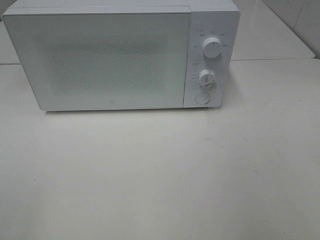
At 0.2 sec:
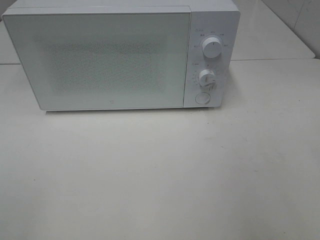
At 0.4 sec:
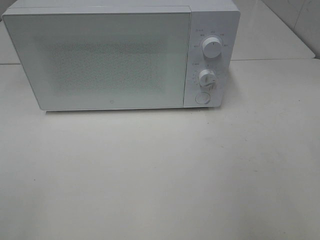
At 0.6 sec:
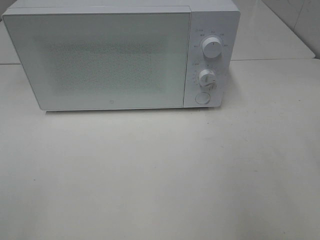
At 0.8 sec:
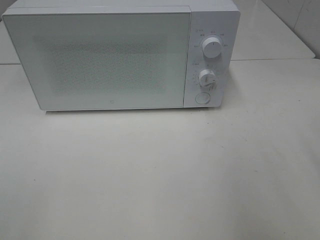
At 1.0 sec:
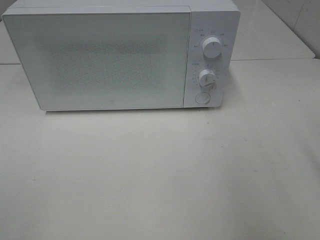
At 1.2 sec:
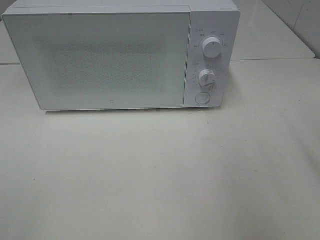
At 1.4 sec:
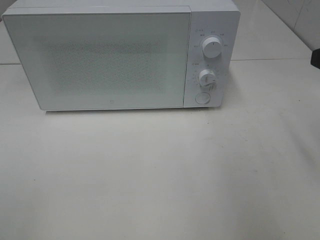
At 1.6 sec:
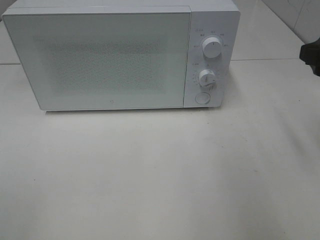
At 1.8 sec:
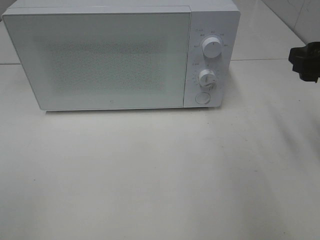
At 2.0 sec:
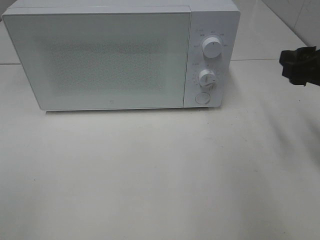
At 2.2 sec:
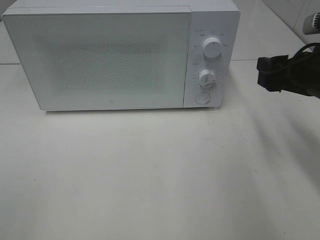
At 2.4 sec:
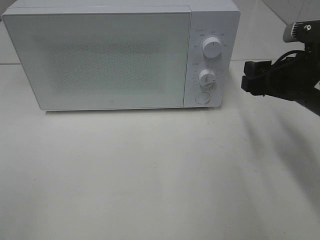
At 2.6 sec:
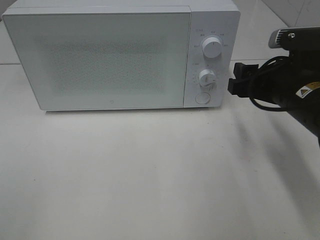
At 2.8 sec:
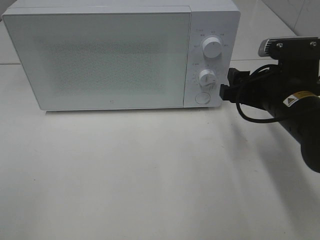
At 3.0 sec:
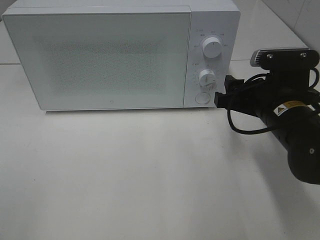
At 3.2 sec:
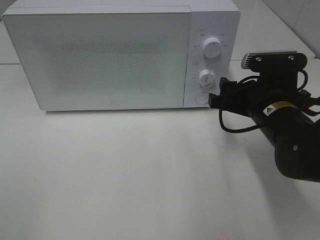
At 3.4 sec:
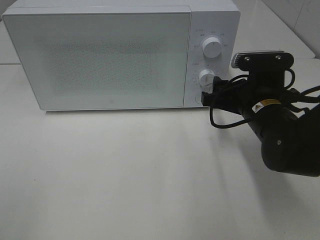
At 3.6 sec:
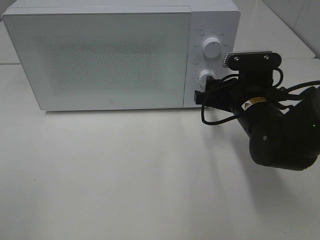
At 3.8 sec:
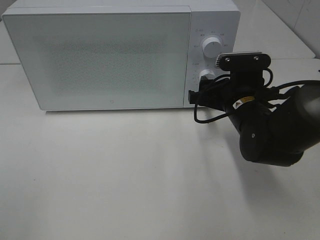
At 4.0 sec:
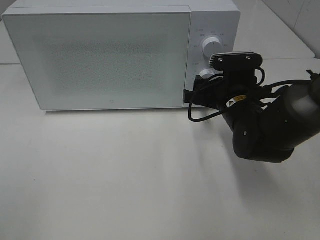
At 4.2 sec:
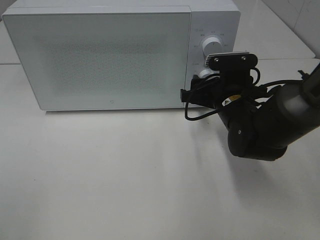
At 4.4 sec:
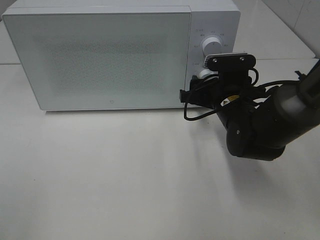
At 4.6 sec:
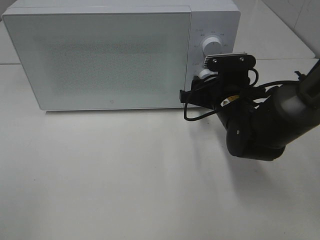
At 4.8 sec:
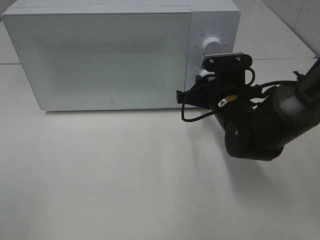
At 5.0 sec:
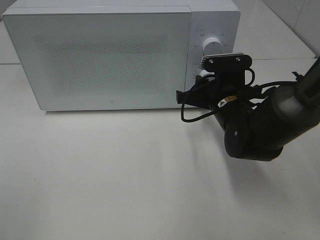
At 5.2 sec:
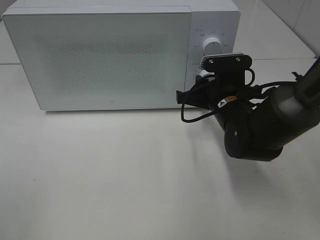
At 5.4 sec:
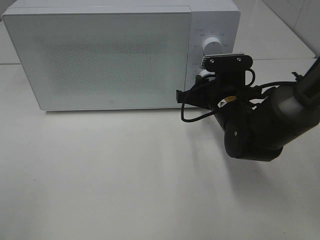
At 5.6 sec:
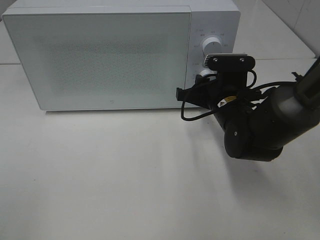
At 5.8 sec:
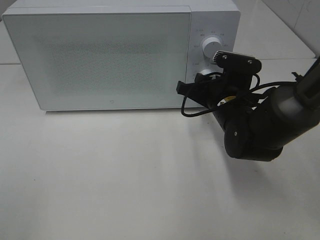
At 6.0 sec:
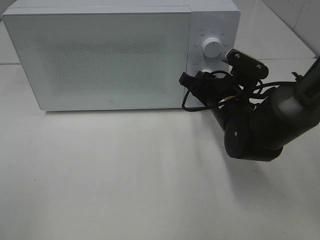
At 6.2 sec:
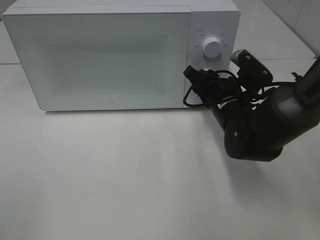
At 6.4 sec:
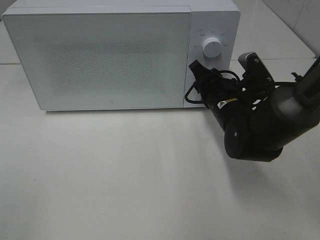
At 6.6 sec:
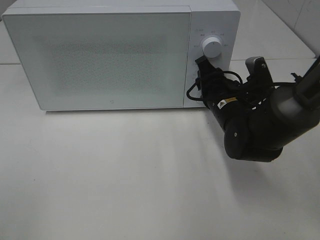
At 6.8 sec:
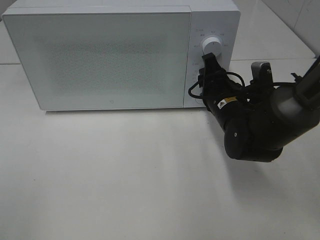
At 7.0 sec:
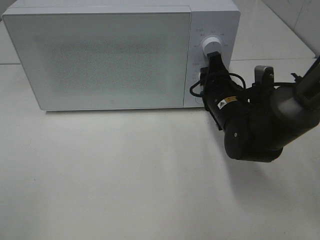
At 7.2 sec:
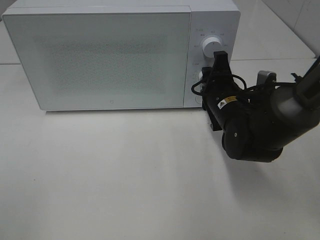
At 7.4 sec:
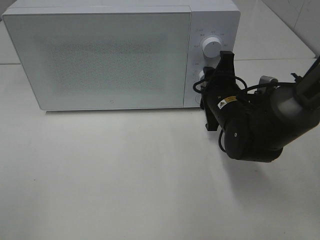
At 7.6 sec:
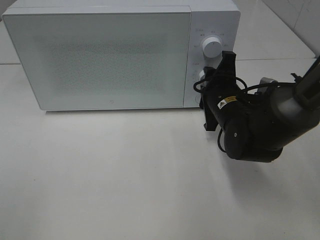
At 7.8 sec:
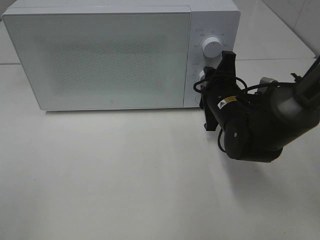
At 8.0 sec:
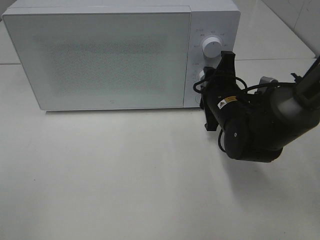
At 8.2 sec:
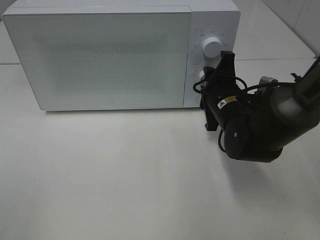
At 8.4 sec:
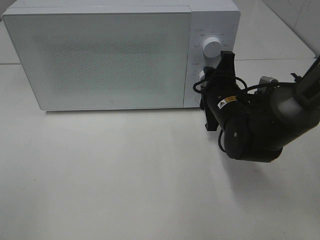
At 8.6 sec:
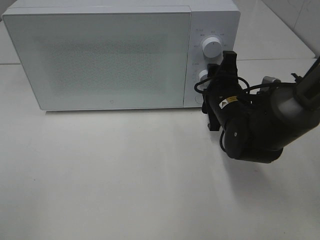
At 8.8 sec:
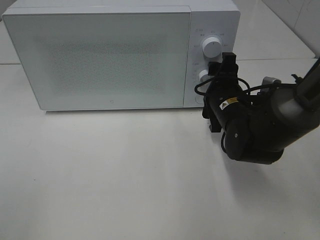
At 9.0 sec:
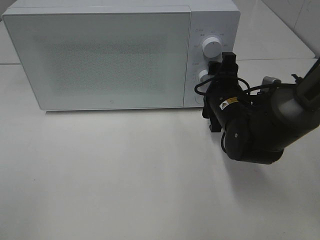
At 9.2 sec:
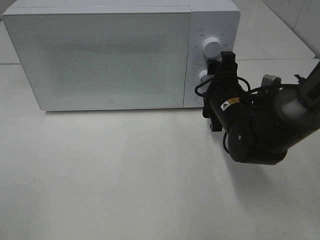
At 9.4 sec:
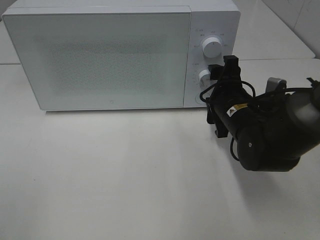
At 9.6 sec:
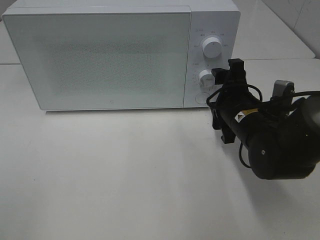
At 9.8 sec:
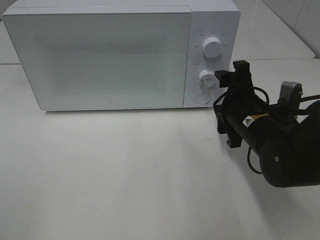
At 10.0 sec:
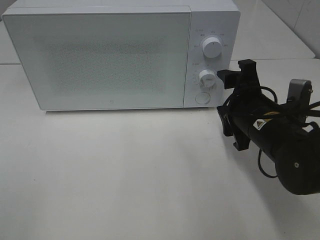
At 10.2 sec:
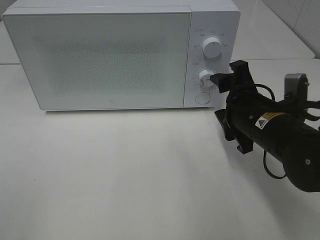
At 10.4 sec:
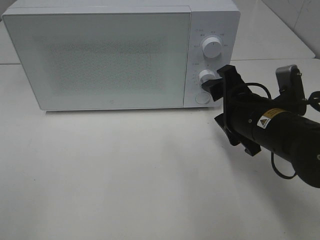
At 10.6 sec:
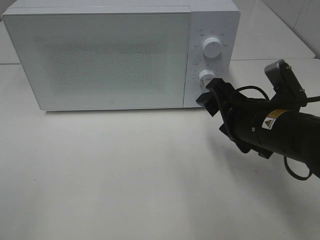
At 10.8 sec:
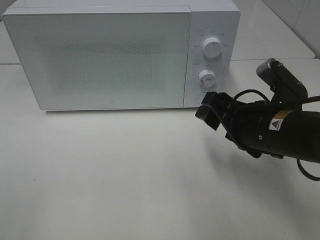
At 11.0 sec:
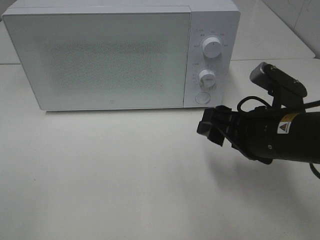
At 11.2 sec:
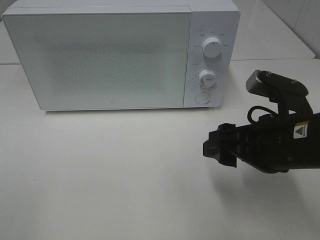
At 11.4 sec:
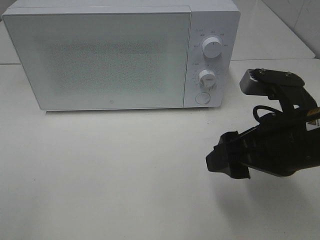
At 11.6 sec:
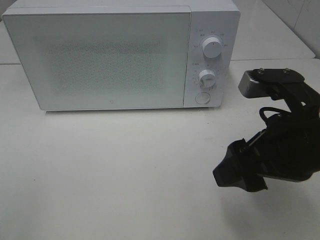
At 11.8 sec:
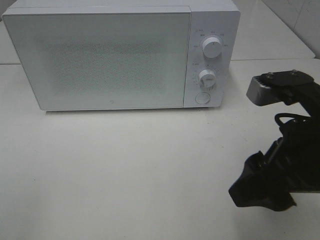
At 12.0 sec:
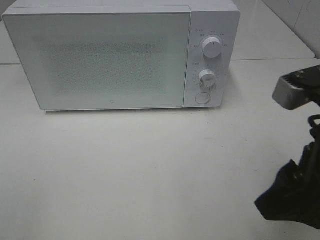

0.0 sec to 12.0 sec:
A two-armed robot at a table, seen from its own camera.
Task of the whole recording: Heat Sandwich.
Step, 0.0 sec to 9.2 sec: Right hand: twist timer button.
0.0 sec to 1.6 sec: The right gripper shifts approximately 15 cm forward.
1.6 sec to 3.0 sec: The right gripper is displaced downward and to the left by about 15 cm.
3.0 sec to 4.4 sec: The right gripper heads forward, covering roughly 5 cm.
4.4 sec to 6.0 sec: The right gripper closes.
7.6 sec to 9.0 sec: The right gripper opens its fingers.
9.0 sec to 10.4 sec: The right gripper goes roughly 10 cm backward.
10.4 sec to 12.0 sec: The right gripper heads backward and upward, covering some 15 cm.

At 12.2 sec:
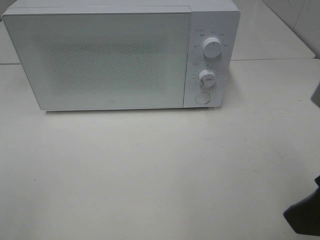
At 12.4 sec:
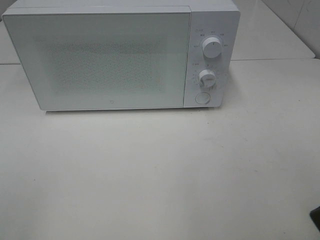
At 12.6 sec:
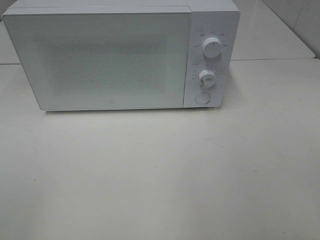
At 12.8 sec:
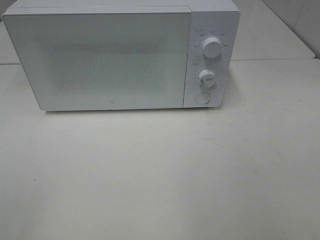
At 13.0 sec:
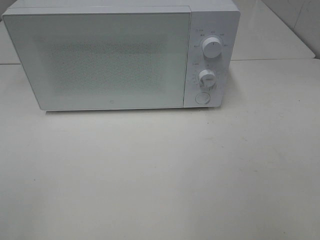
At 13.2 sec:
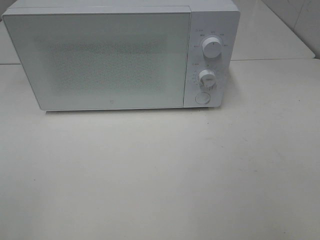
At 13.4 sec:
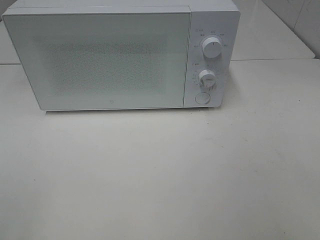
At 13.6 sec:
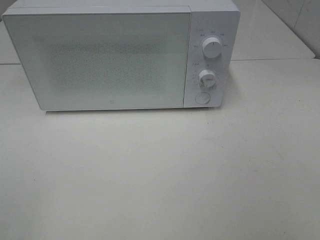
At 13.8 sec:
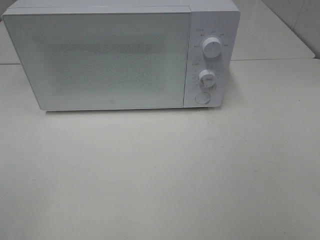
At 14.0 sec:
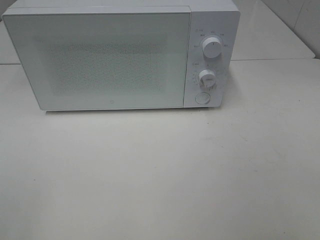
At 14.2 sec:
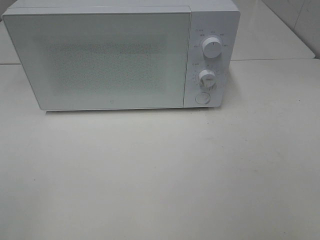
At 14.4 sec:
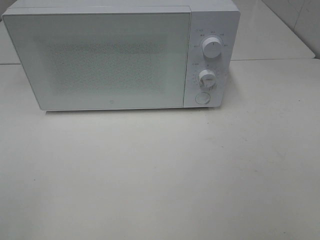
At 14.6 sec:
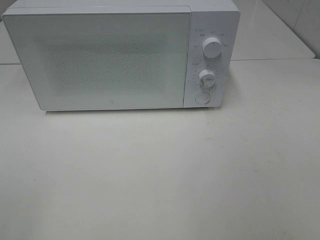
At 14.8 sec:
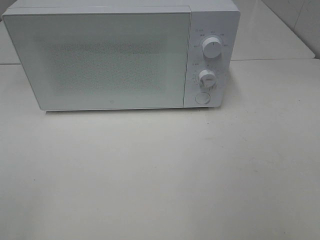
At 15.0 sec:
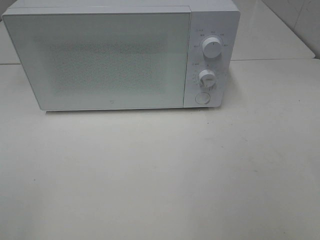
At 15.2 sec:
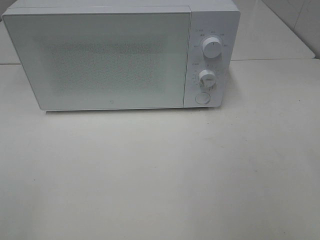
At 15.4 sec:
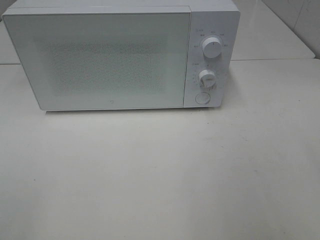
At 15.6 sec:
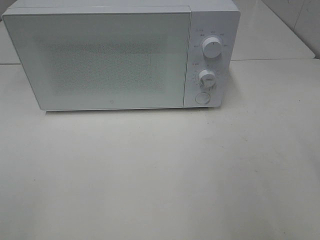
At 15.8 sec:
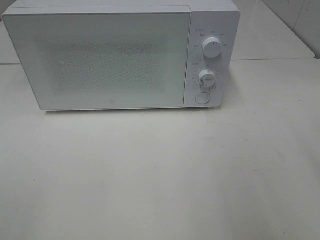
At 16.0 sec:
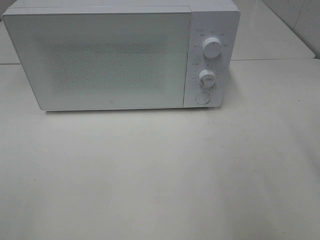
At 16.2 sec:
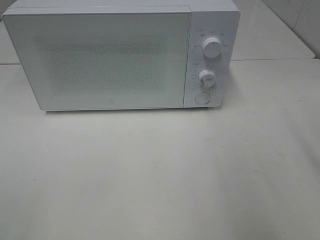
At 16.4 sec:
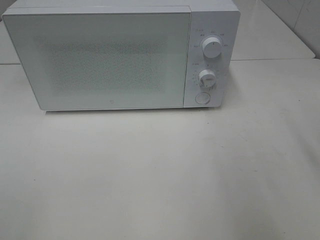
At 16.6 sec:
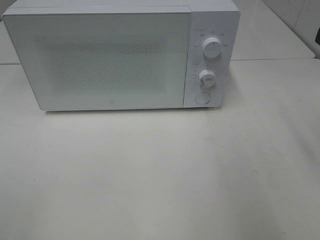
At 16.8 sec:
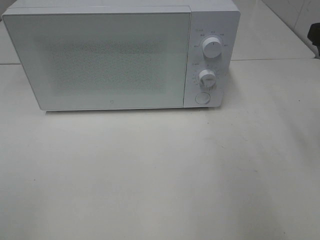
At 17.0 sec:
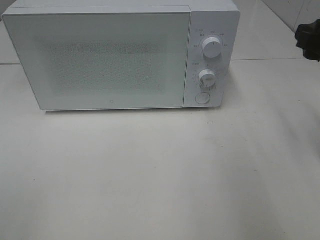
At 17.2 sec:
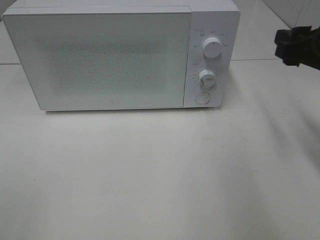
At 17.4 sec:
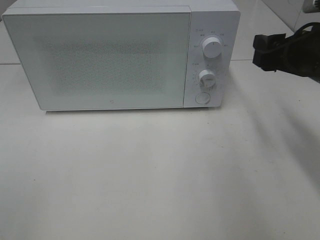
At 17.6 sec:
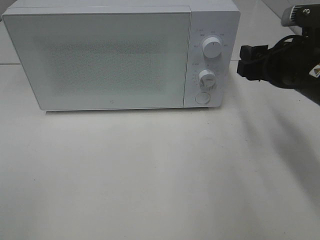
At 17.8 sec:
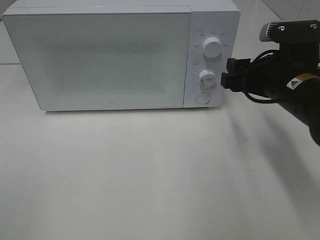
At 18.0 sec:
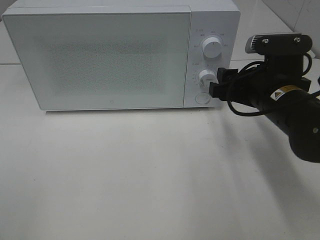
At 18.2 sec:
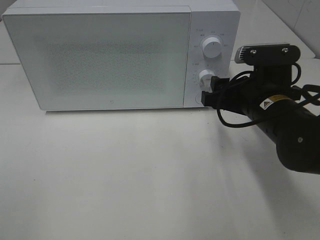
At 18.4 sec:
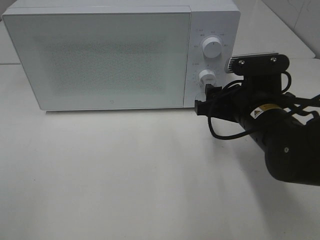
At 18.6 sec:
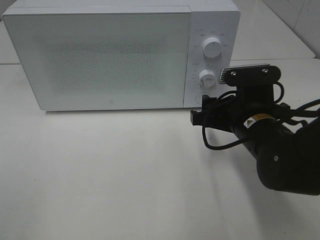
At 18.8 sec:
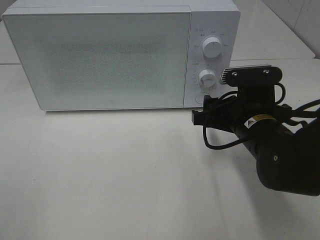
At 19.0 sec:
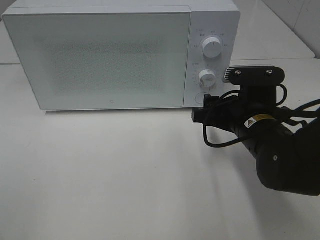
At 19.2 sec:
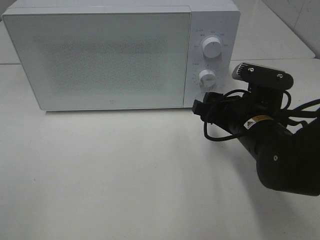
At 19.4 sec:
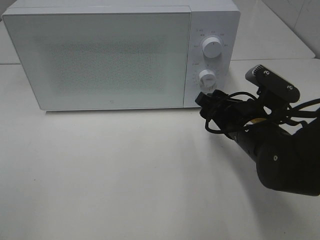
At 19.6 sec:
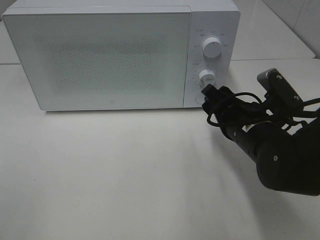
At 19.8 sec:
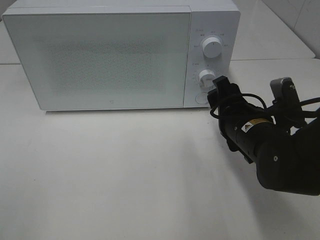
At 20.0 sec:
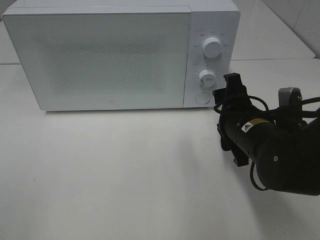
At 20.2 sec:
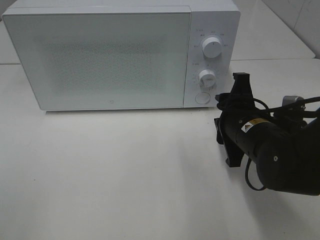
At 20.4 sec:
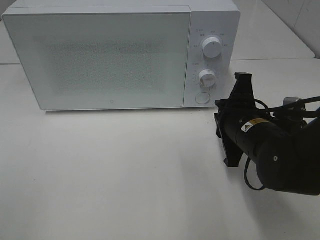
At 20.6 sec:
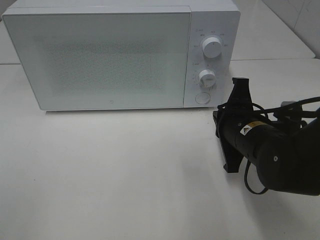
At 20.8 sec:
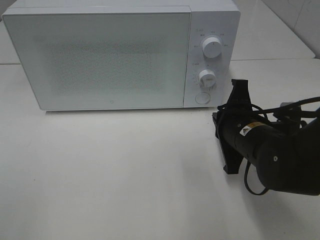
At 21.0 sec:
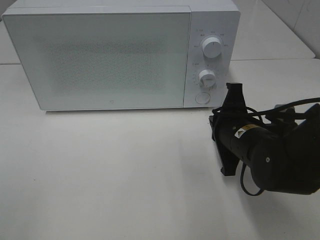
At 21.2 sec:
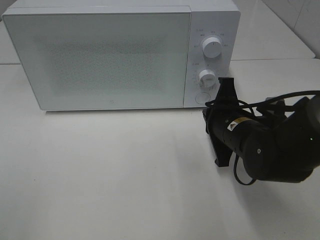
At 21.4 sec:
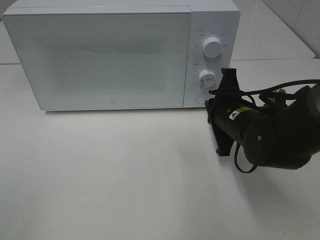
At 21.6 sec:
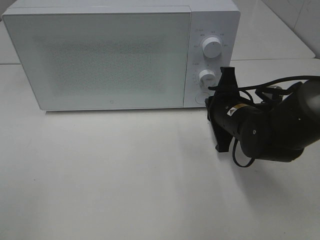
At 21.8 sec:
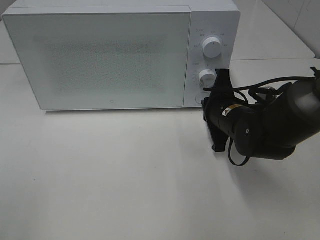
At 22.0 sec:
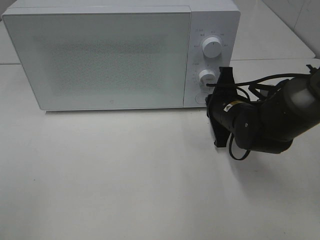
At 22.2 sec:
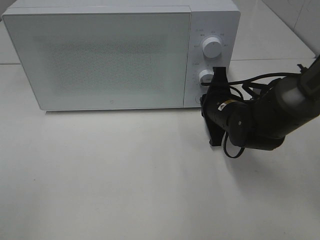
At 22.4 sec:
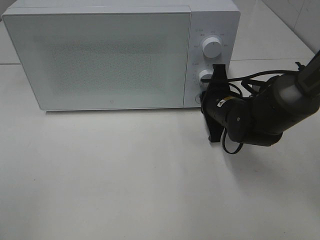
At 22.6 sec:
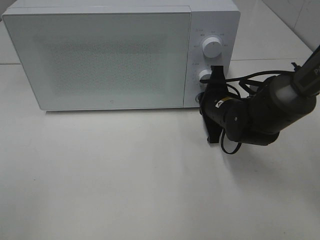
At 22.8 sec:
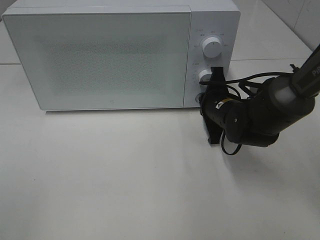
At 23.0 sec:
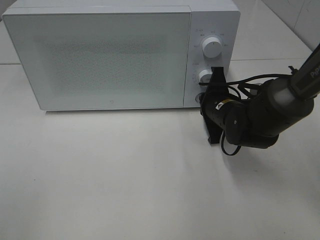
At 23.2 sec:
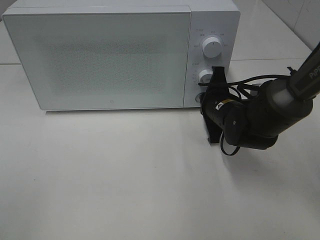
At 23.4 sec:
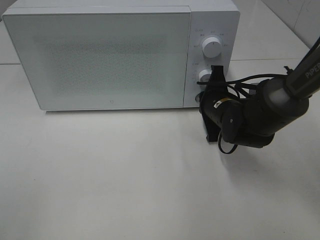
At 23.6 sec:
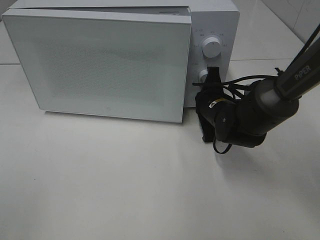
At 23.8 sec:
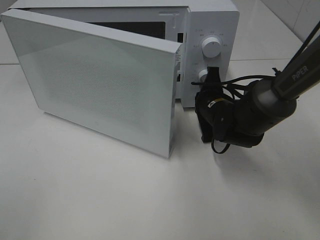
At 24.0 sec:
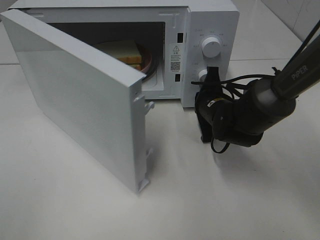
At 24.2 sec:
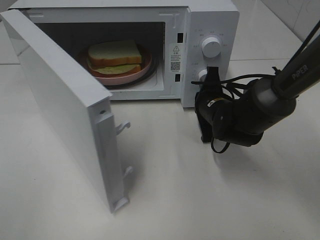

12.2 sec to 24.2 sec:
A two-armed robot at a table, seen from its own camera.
Task of the whole recording: Heat Sandwich.
12.2 sec to 13.8 sec: The right gripper heads backward and to the right, covering approximately 15 cm.
16.6 sec to 18.2 sec: The right gripper goes some 20 cm downward, to the left and forward.
19.8 sec to 21.2 sec: The right gripper closes up.
21.2 sec to 22.6 sec: The right gripper travels forward by about 10 cm.
